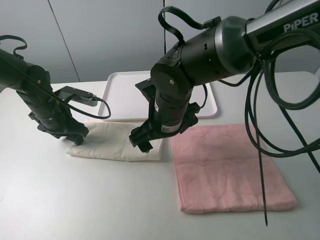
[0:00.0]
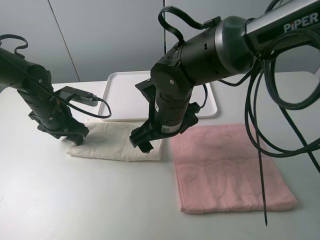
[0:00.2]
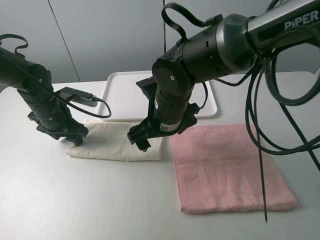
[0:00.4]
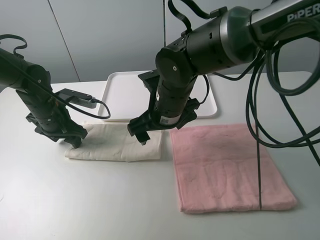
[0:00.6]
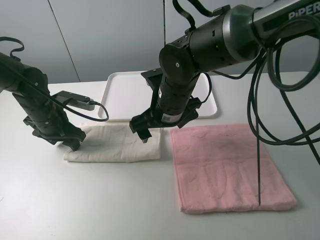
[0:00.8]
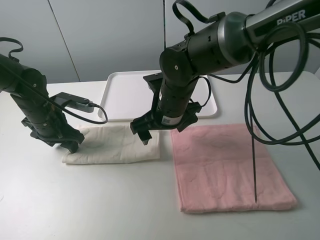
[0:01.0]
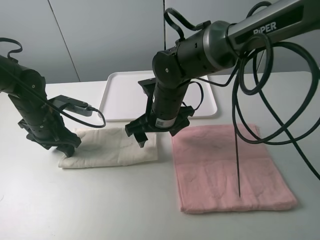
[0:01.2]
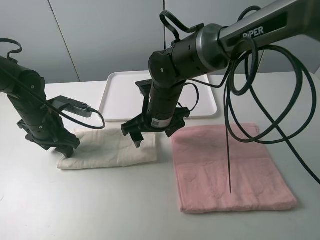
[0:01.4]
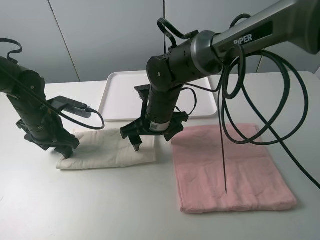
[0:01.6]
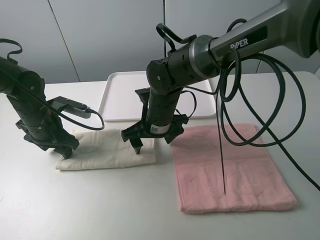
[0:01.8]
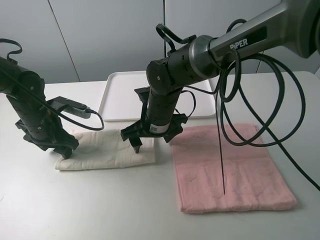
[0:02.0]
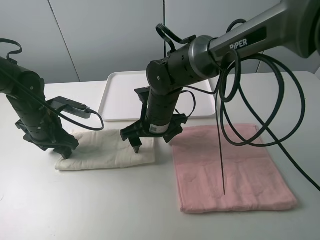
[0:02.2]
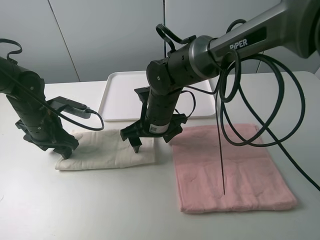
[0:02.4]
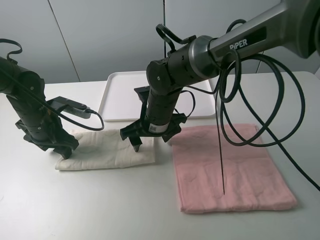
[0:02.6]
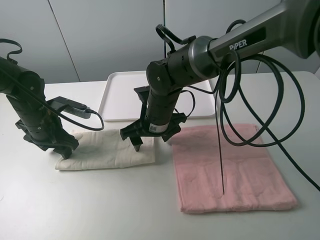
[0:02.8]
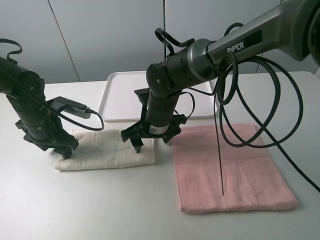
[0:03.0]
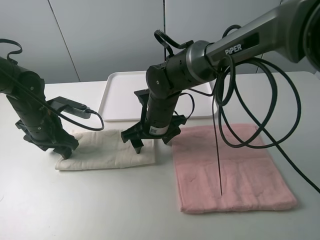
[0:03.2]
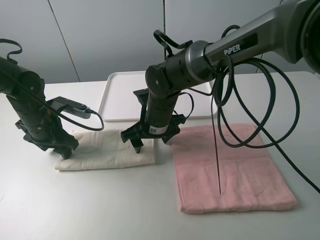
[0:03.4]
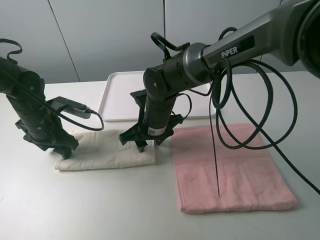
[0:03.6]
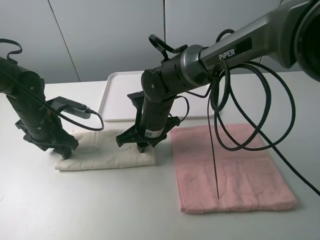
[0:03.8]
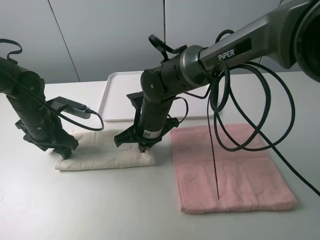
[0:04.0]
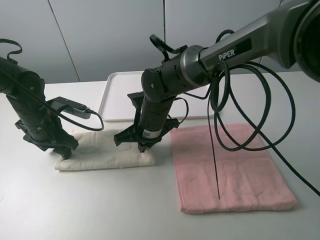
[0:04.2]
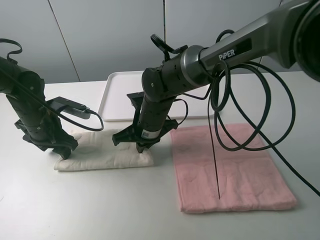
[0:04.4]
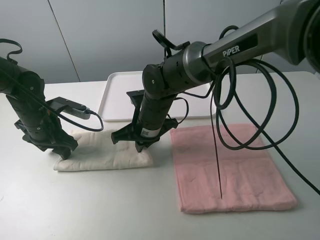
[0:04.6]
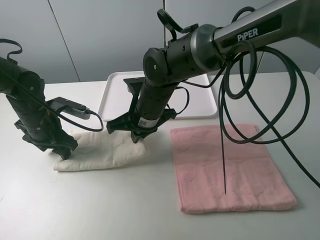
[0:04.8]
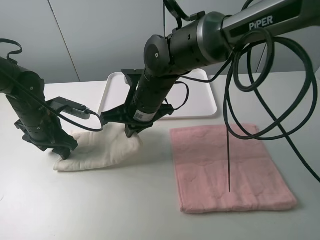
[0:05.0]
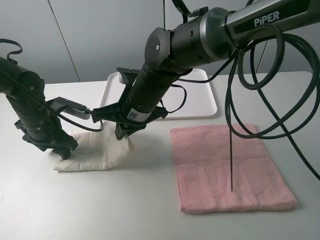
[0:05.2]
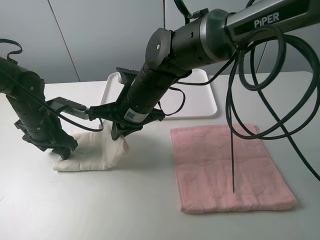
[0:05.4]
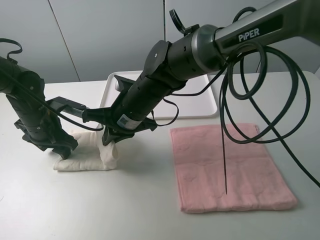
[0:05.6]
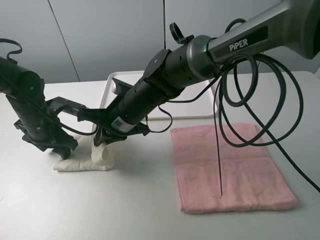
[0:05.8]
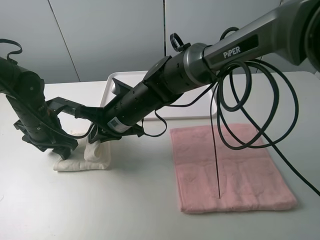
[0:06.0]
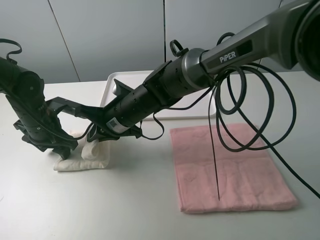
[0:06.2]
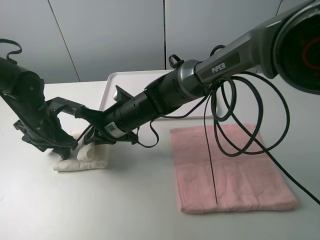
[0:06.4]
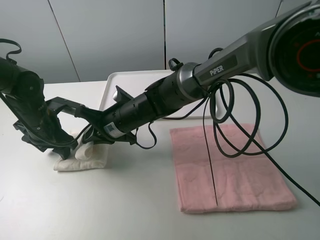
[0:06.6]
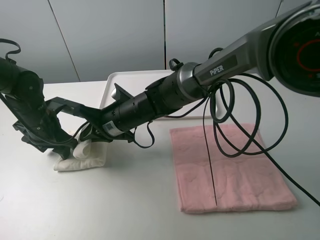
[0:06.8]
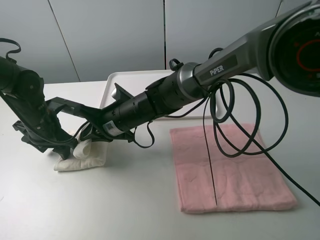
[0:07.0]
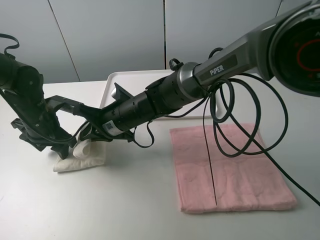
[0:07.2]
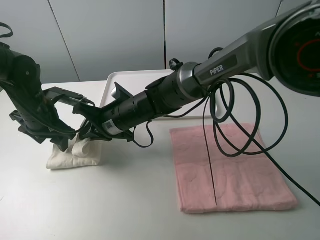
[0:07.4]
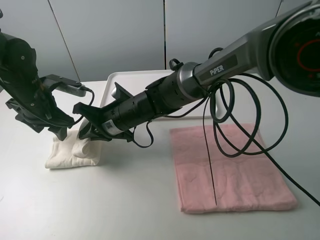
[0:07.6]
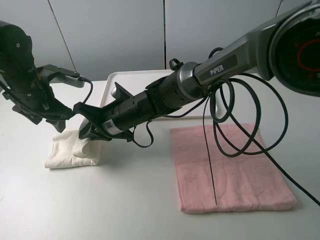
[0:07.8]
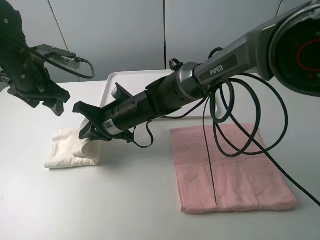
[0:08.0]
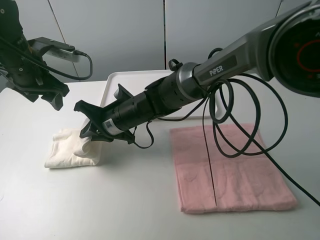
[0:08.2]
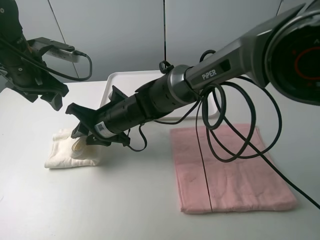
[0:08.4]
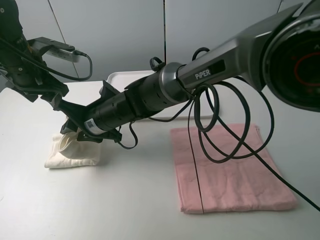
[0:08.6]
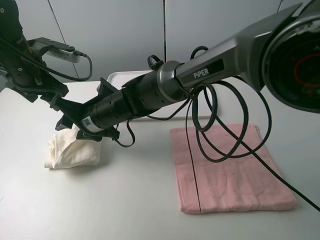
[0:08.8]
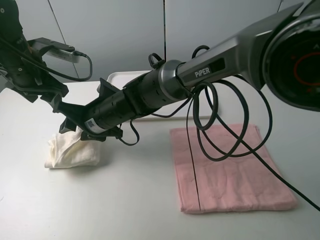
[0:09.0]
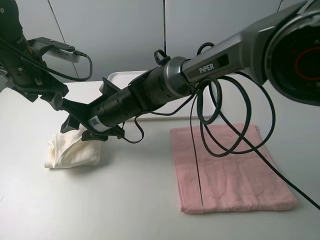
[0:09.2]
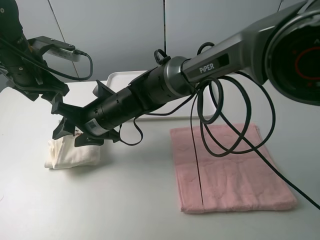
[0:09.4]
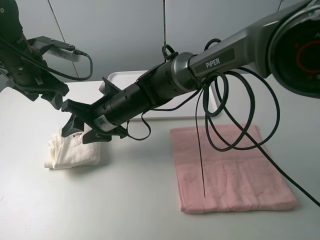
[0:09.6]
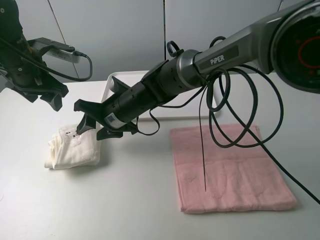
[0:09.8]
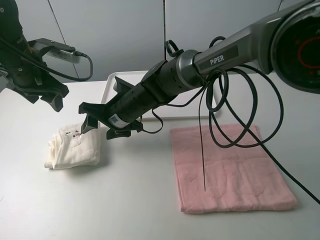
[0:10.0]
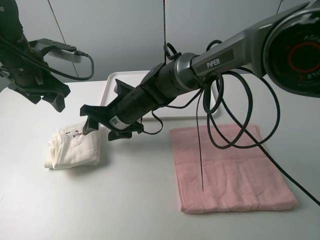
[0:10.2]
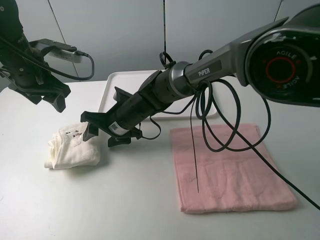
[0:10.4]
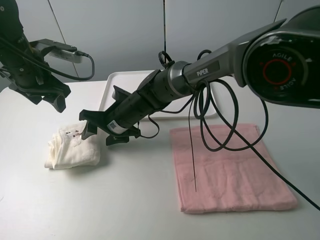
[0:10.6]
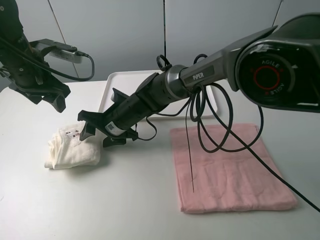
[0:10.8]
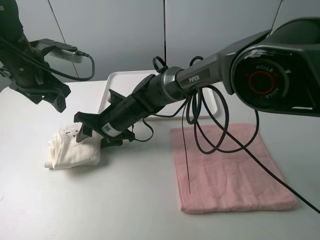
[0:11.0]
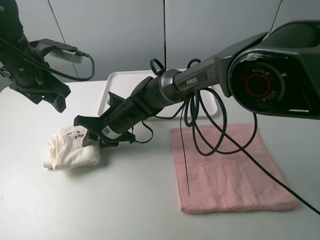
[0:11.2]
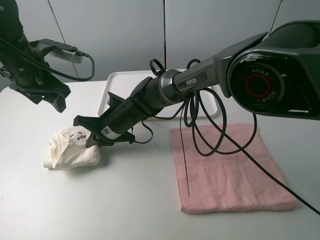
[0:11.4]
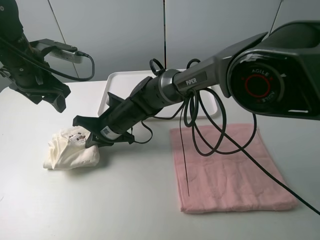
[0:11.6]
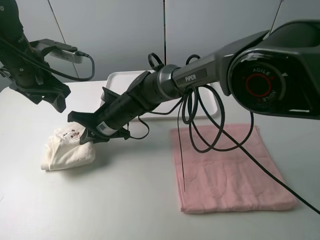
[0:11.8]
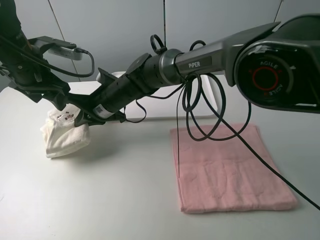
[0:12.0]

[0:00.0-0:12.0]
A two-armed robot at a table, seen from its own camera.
Task of the whole recording: fold one of the towels by two grippers and place it on the tray,then fold another towel by two grippers and place it on the folded towel.
Step, 0:00.8 to 0:04.2: Grasp the white towel with the right gripper.
Step, 0:04.4 to 0:09.6: Fold the white towel from right to left with right gripper.
Step, 0:09.8 to 0:11.6: Grasp the white towel with the right gripper.
0:00.0 to 0:01.6: The right gripper ends up about 5 cm from where it was.
0:01.6 to 0:03.0: Both grippers stay put.
0:03.0 to 0:04.4: The right gripper closes its fingers.
0:04.4 to 0:06.0: The right gripper ends up approximately 5 cm from where it was.
0:06.0 to 0:07.6: The left gripper moves upward, about 5 cm.
0:07.6 to 0:09.0: The right gripper opens. Meanwhile the left gripper goes approximately 5 cm upward.
0:09.0 to 0:10.4: The right gripper moves roughly 5 cm.
0:10.4 to 0:12.0: The right gripper changes place by roughly 5 cm, and closes its fingers.

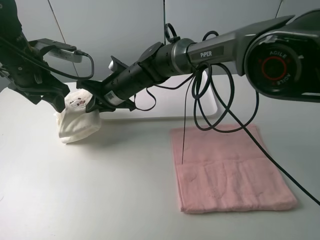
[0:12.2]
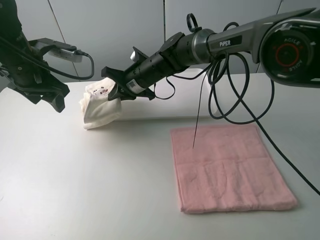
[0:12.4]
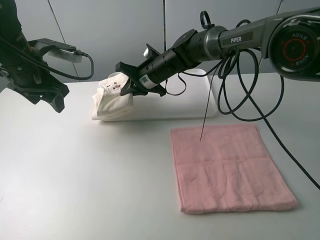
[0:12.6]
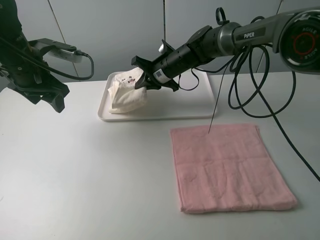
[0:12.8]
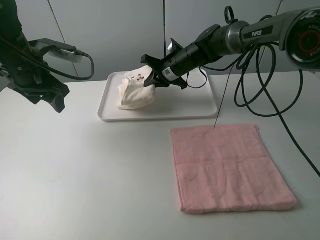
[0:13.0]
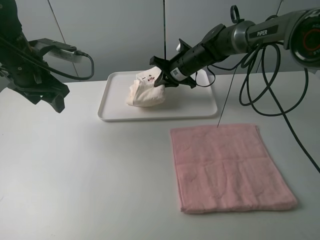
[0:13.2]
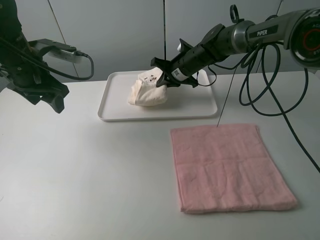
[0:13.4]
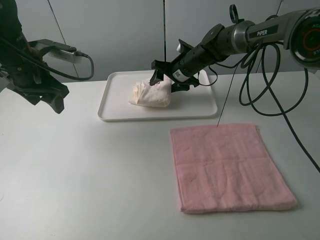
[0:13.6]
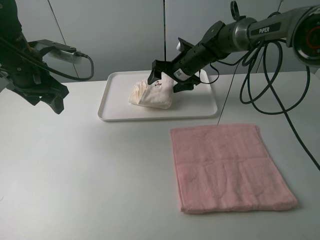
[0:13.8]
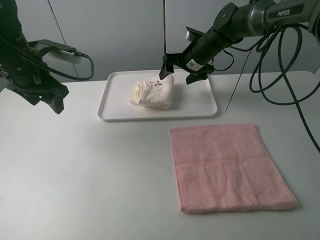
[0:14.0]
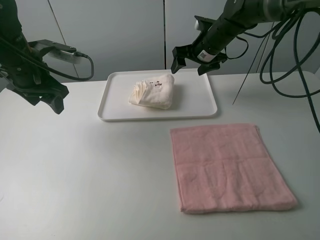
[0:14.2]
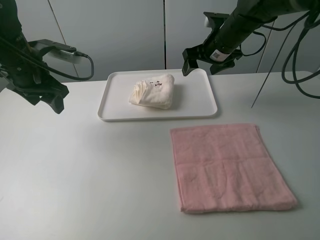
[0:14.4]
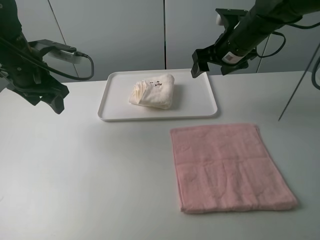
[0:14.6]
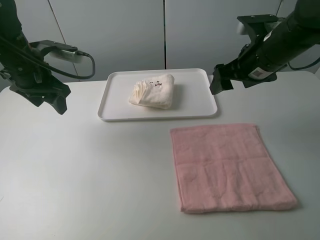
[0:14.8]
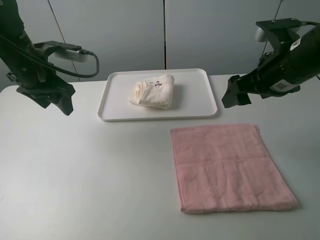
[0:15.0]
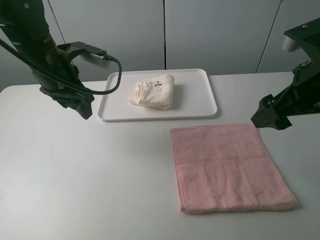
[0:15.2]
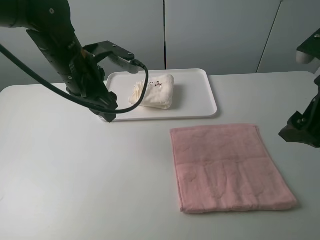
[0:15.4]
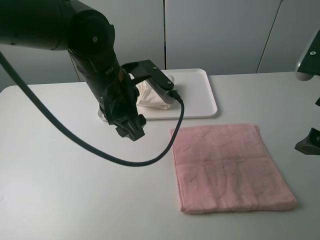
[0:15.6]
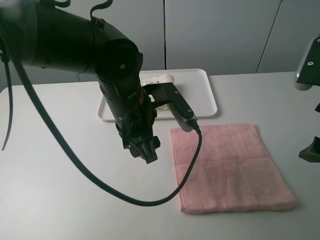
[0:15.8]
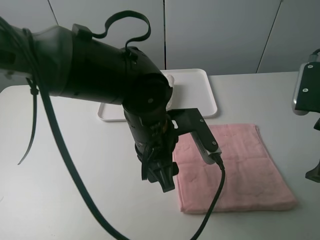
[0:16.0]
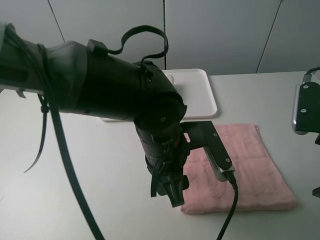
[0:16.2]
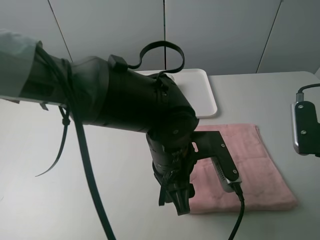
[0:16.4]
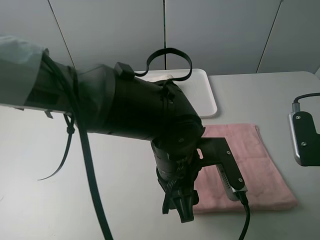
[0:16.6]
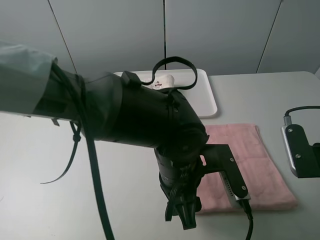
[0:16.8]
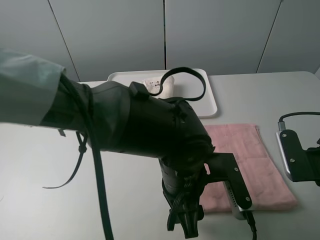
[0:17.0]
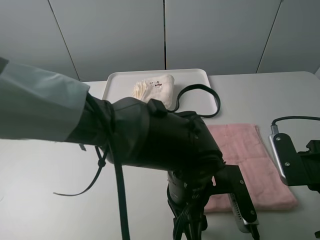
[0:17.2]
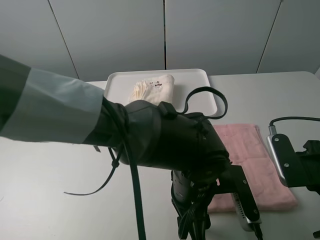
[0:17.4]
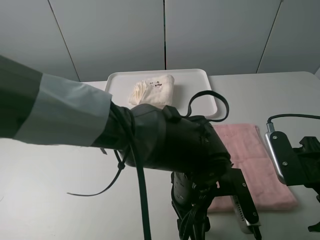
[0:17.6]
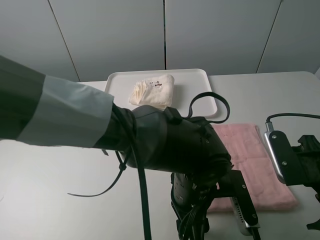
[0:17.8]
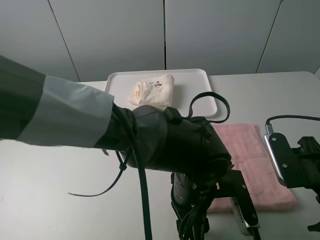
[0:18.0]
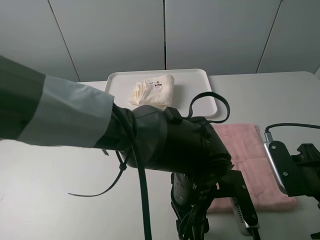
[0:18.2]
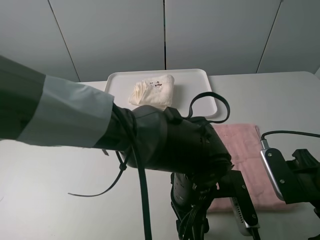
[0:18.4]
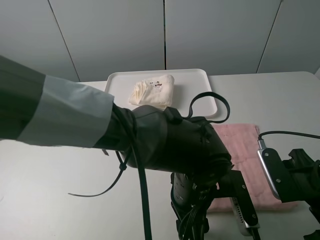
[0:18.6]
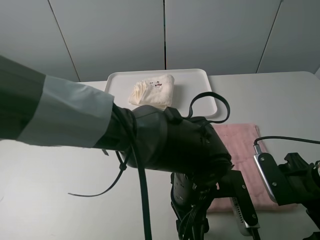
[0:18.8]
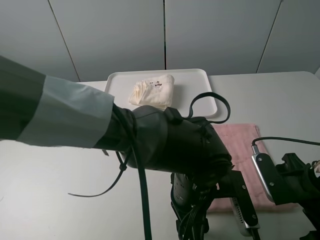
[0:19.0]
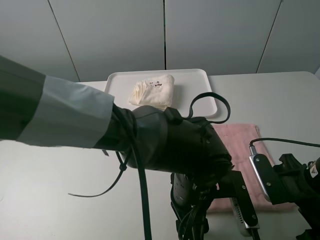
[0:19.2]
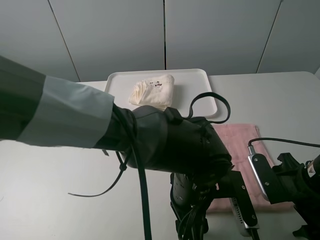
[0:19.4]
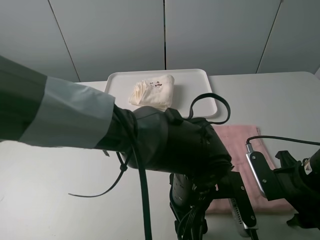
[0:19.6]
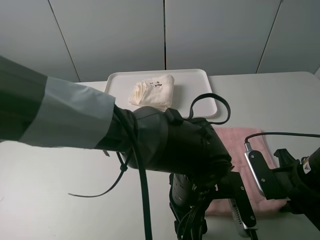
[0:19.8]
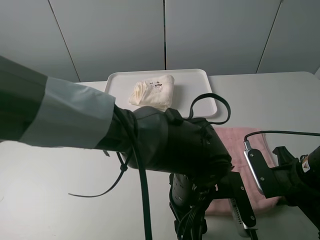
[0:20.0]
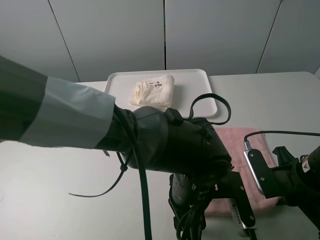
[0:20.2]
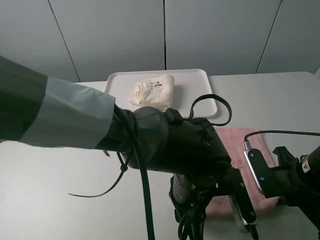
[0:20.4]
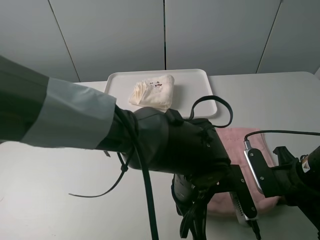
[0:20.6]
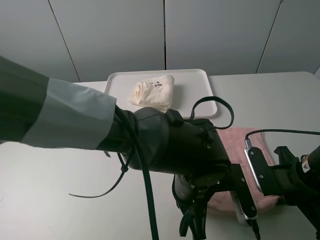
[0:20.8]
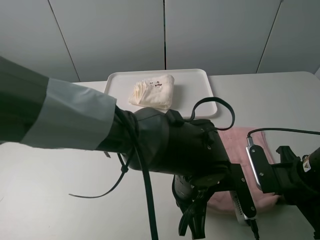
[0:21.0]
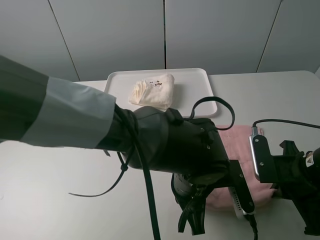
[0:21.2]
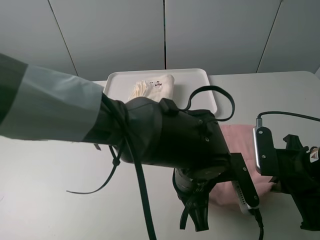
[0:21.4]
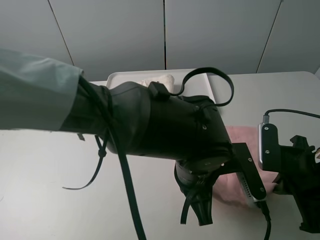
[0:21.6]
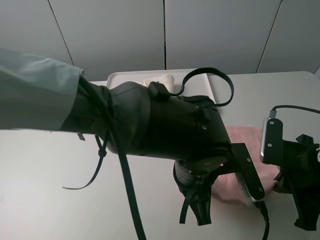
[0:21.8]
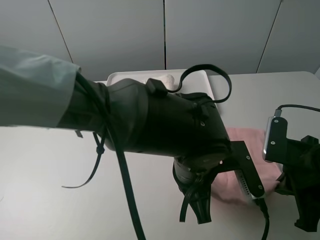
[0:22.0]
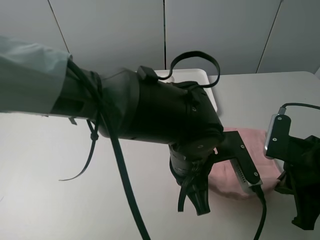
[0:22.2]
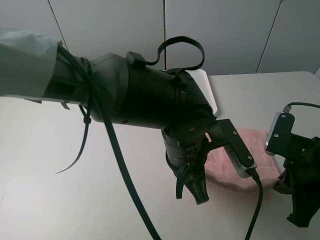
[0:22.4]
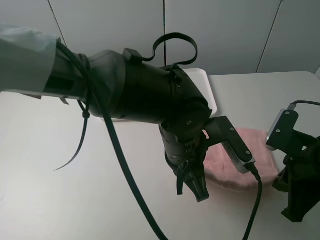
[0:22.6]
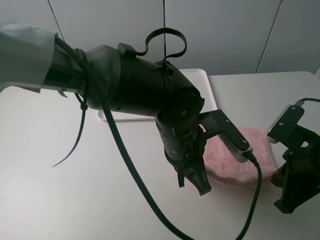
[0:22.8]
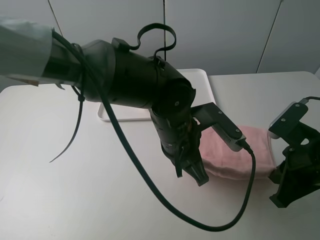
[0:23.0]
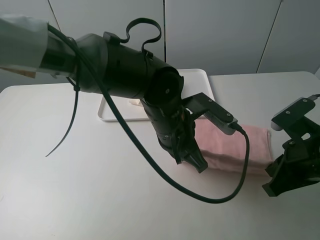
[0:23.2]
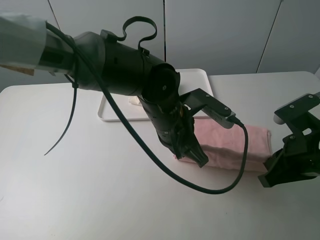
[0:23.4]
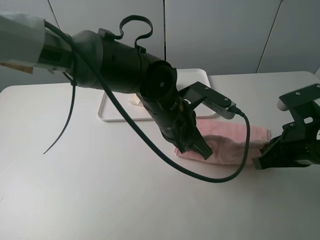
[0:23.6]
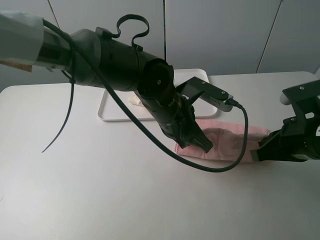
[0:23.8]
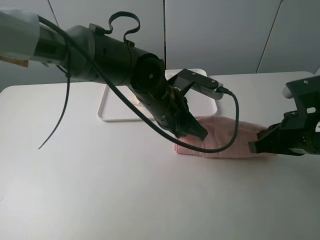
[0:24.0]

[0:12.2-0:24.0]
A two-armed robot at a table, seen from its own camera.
Task of the whole recording: fold one of the towels by two grippers and place it on the tray,then fold another towel by two grippers and place it on the folded towel.
Step, 0:12.2 to 0:14.0: Move the white towel to the plate with the right gripper.
Step, 0:14.2 to 0:20.8: Grasp the pink towel with the left gripper.
0:12.2 to 0:13.6: The right gripper travels to the right and forward by some 20 cm, and opens.
0:13.6 to 0:15.2: The left gripper is displaced to the right by about 5 cm, while the right gripper goes some 35 cm backward, to the right and upward.
0:15.2 to 0:16.6: The left gripper is displaced to the right, backward and downward by approximately 25 cm, while the right gripper moves backward and downward, about 10 cm.
0:16.6 to 0:18.2: The left gripper moves some 5 cm.
0:18.2 to 0:19.6: The right gripper moves approximately 5 cm, and closes its fingers.
0:19.6 to 0:21.0: The left gripper closes up; the right gripper closes up.
0:21.0 to 0:22.6: The left gripper moves upward, about 5 cm.
0:22.6 to 0:24.0: The left gripper shifts roughly 10 cm forward.
